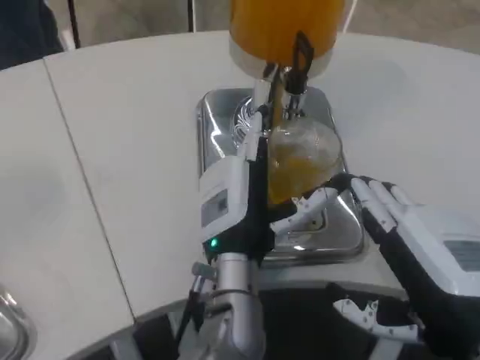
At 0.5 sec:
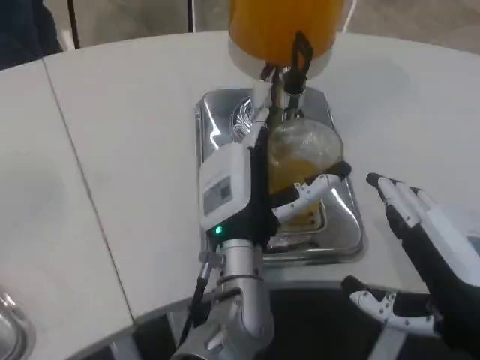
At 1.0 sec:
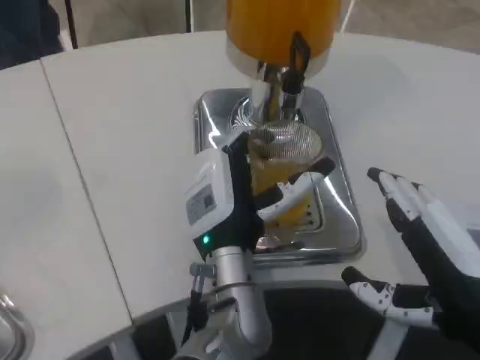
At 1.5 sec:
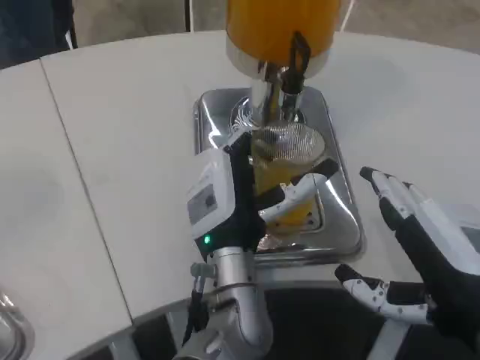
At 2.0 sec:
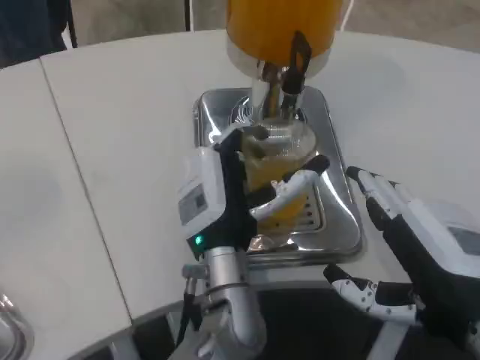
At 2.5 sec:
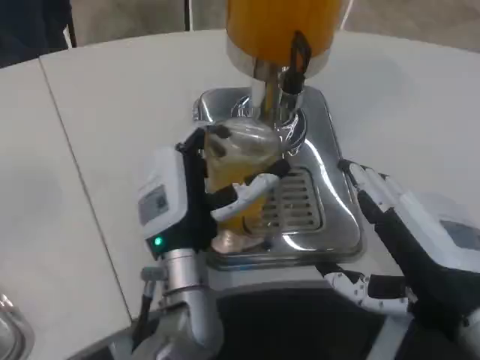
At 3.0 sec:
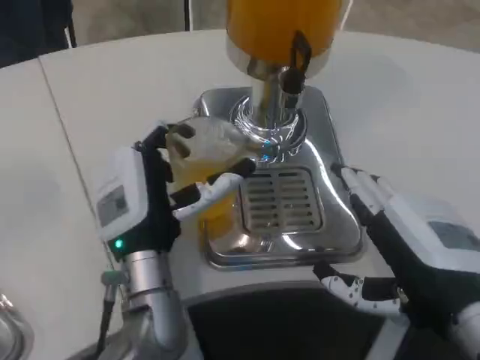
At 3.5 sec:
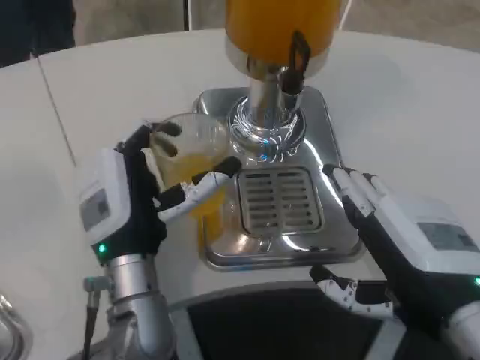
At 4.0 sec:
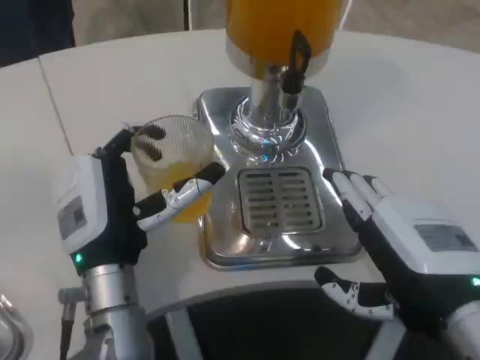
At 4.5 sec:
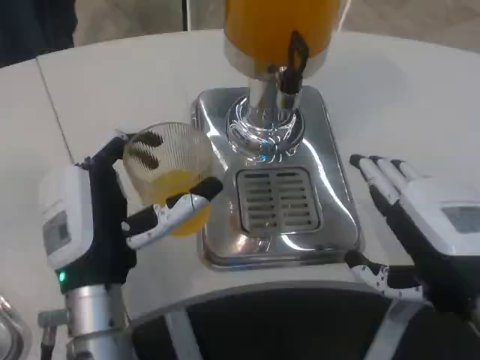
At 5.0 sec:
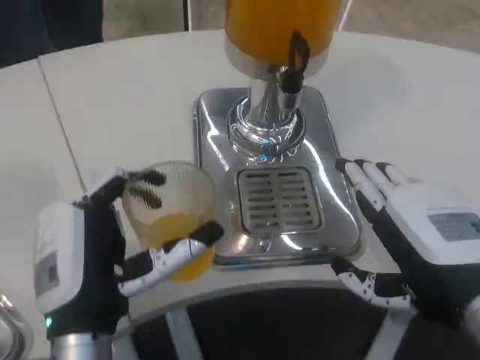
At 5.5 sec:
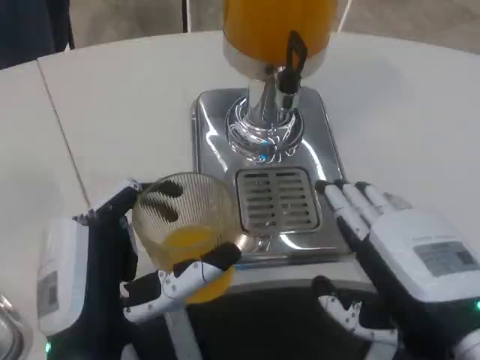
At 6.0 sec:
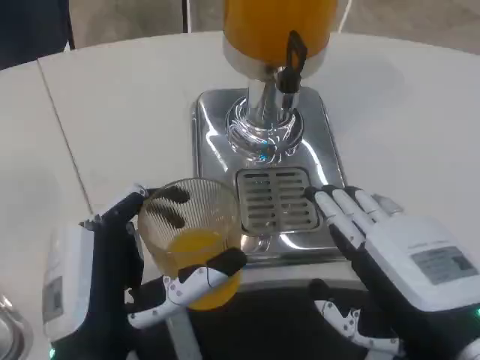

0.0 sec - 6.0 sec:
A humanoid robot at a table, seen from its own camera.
Task of the whole recording: Grasp the cup under the faucet to collect the drink, then remove the cup.
0.0 sec - 2.0 sec: There are only small adjustments of the hands.
2.0 sec - 4.0 sec: The left hand heads to the left, covering approximately 10 cm.
4.0 sec - 6.0 sec: The left hand moves backward, about 10 cm.
